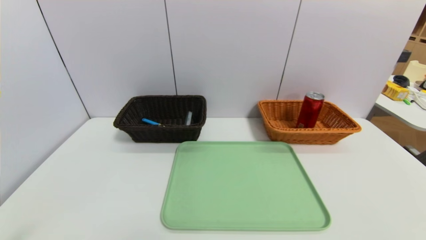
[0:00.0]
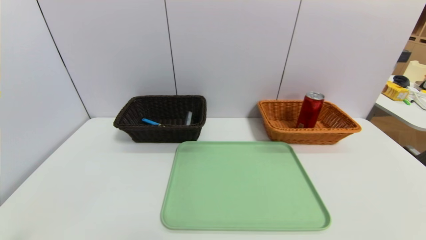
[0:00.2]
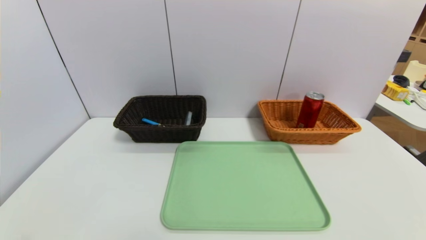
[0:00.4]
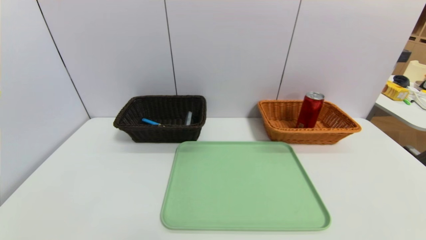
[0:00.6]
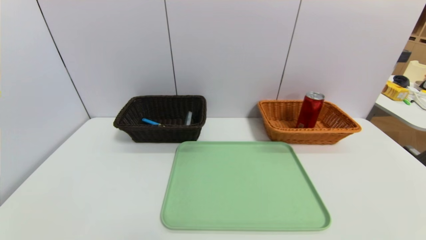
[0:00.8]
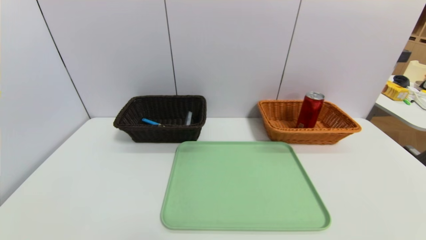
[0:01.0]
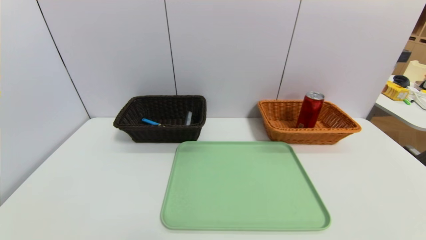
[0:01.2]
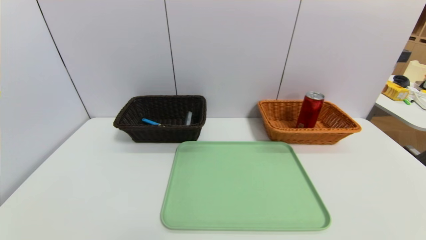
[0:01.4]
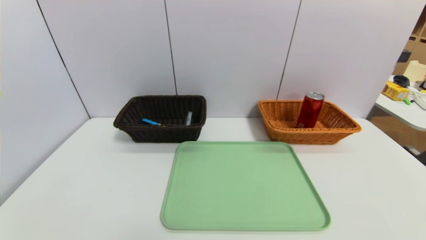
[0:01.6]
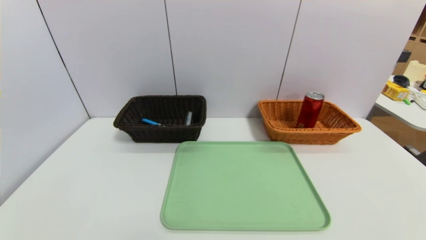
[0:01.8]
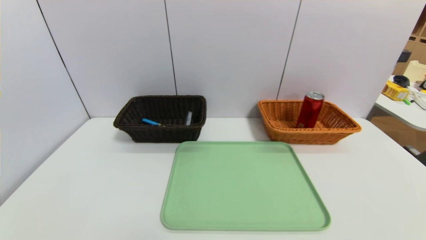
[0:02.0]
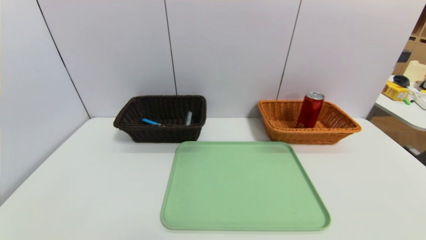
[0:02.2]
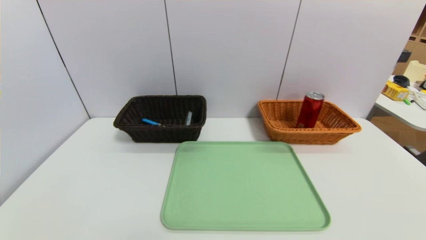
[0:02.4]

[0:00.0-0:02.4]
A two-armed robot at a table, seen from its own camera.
Task of the whole recording: place the food in the right basket with the right gripper, and place the non food items in the left basket with the left gripper.
0:01.2 to 0:02.4: Both grippers stay put.
